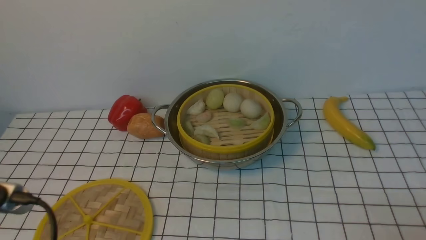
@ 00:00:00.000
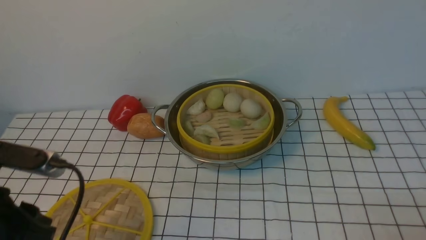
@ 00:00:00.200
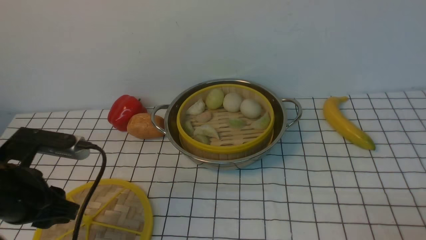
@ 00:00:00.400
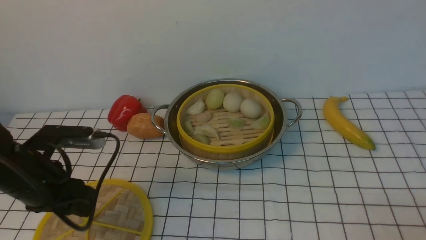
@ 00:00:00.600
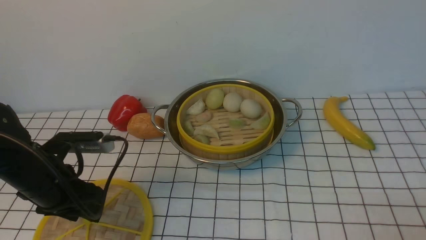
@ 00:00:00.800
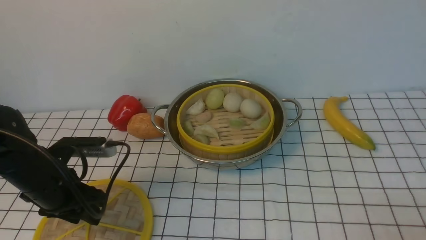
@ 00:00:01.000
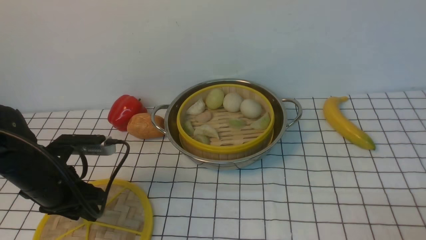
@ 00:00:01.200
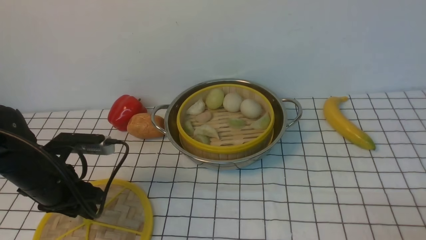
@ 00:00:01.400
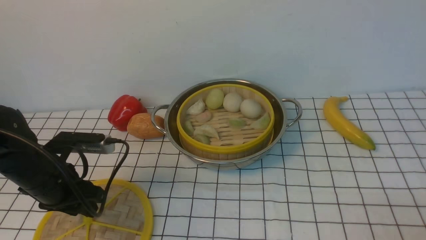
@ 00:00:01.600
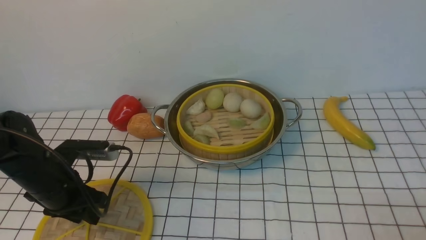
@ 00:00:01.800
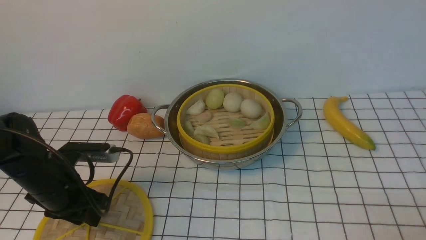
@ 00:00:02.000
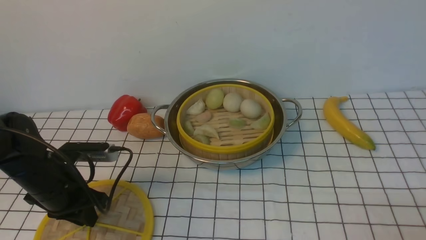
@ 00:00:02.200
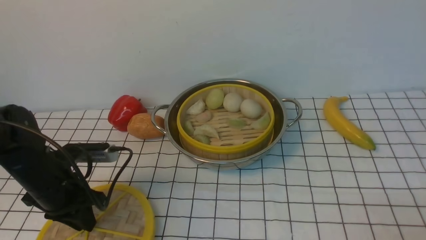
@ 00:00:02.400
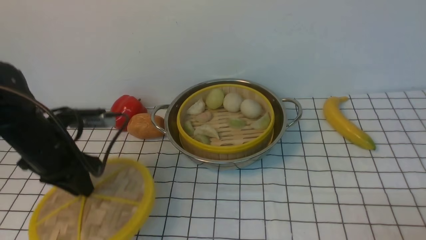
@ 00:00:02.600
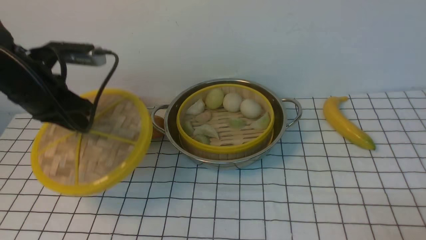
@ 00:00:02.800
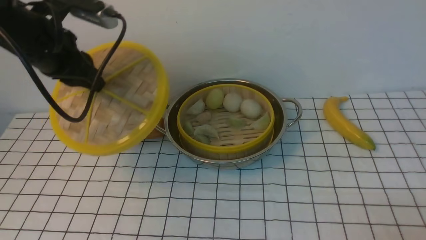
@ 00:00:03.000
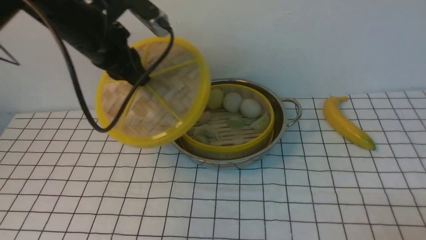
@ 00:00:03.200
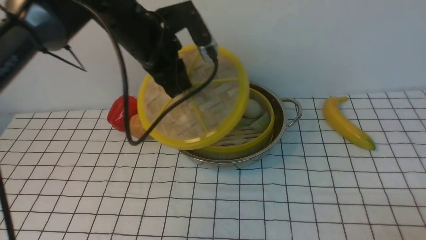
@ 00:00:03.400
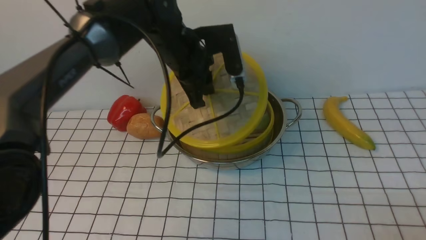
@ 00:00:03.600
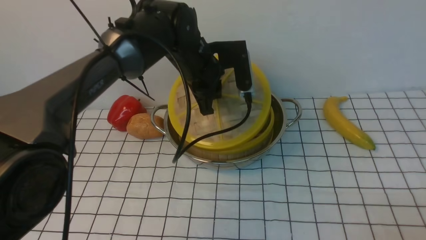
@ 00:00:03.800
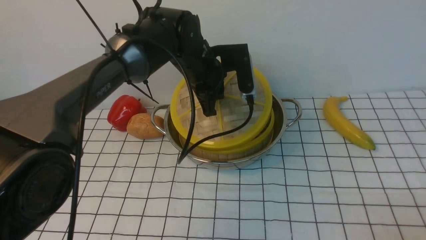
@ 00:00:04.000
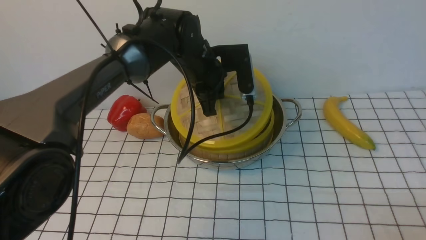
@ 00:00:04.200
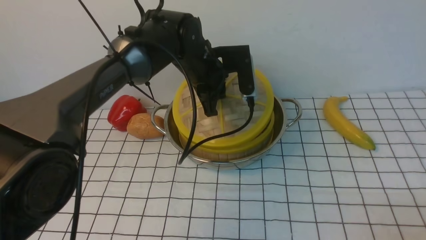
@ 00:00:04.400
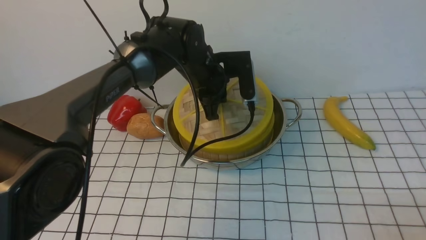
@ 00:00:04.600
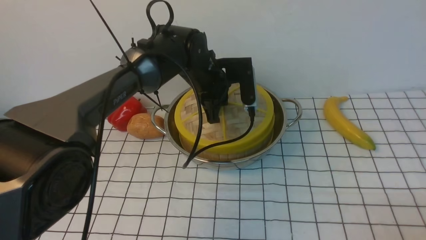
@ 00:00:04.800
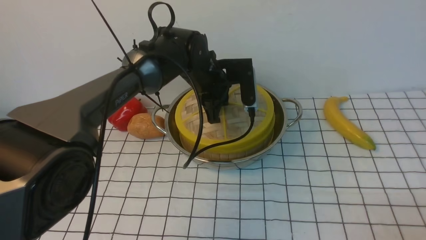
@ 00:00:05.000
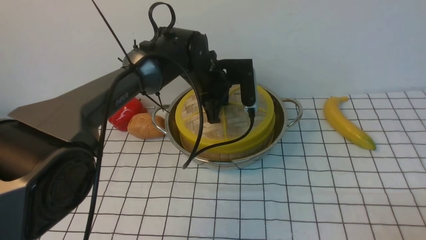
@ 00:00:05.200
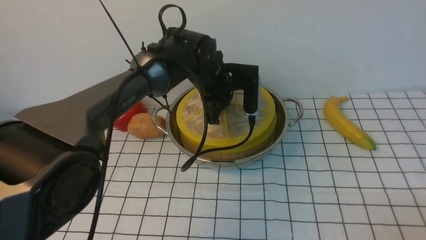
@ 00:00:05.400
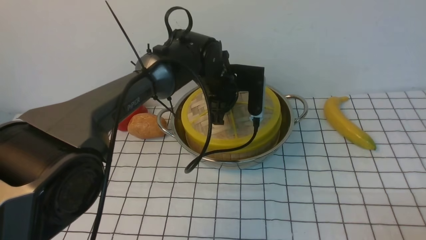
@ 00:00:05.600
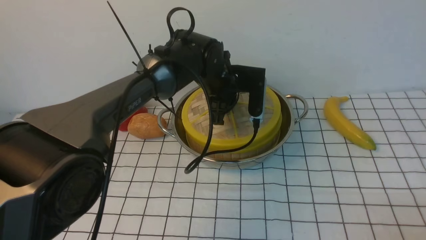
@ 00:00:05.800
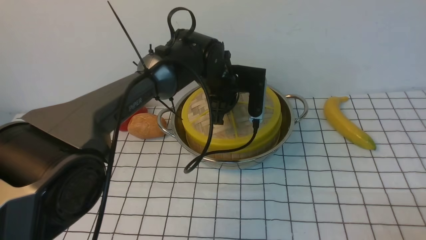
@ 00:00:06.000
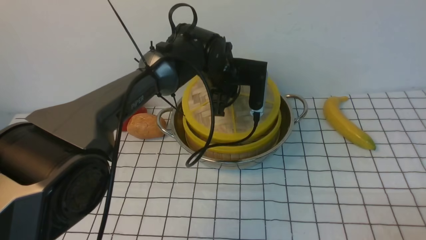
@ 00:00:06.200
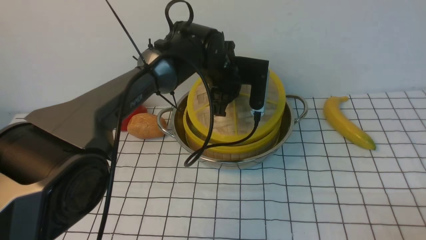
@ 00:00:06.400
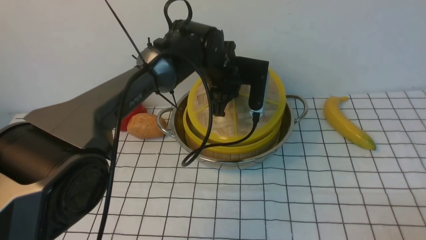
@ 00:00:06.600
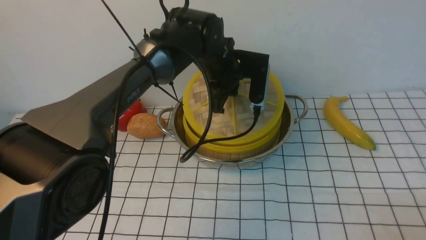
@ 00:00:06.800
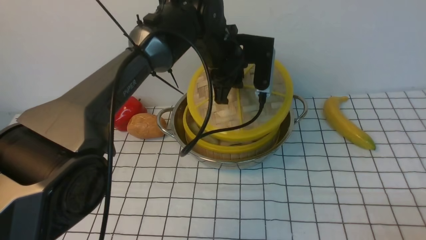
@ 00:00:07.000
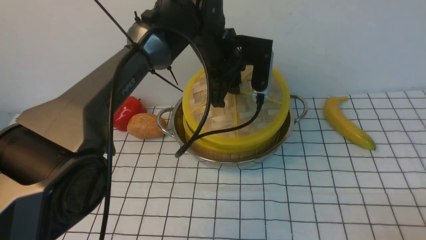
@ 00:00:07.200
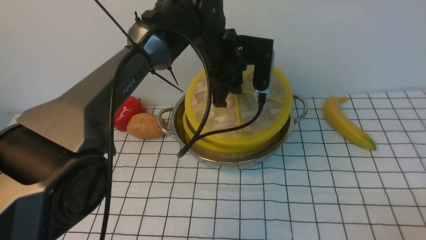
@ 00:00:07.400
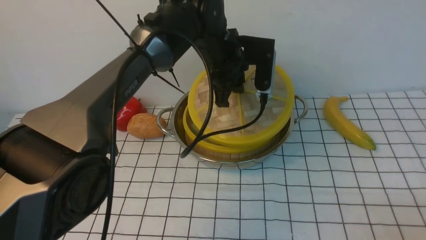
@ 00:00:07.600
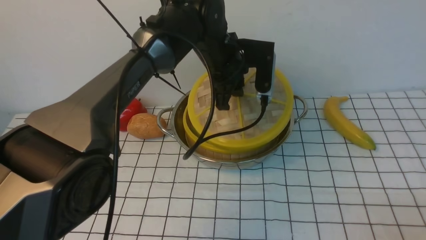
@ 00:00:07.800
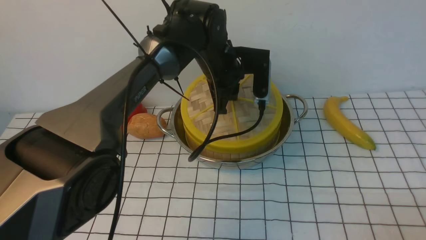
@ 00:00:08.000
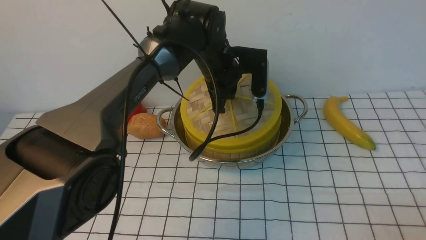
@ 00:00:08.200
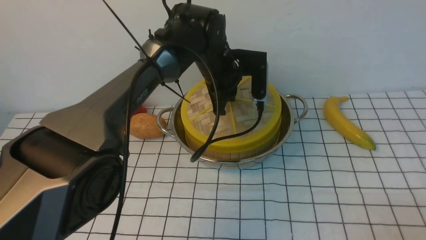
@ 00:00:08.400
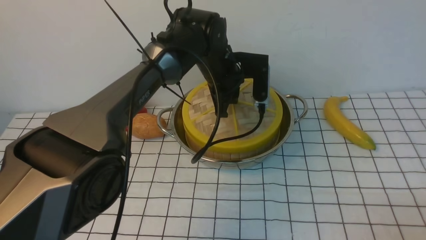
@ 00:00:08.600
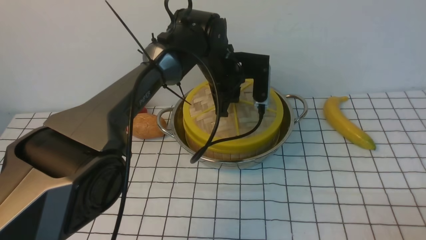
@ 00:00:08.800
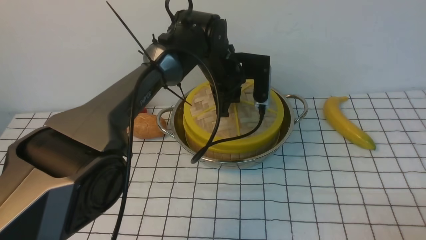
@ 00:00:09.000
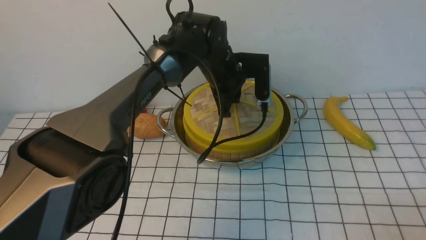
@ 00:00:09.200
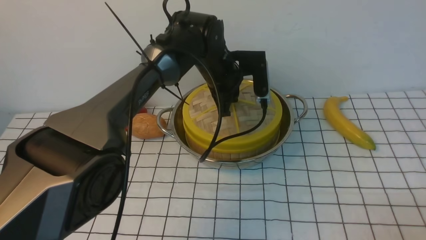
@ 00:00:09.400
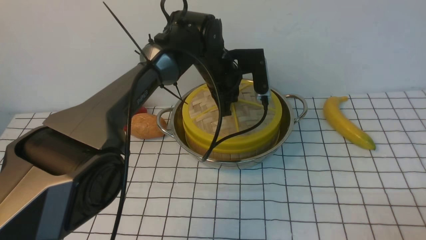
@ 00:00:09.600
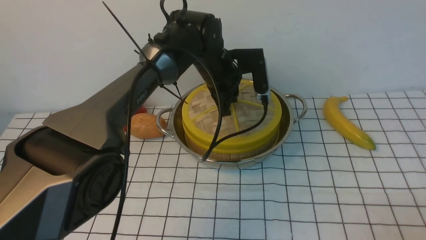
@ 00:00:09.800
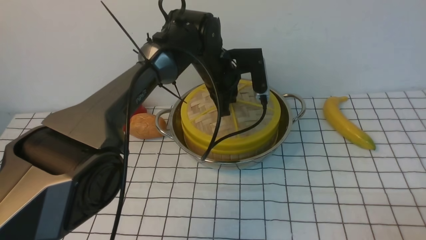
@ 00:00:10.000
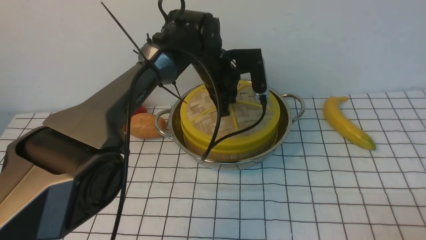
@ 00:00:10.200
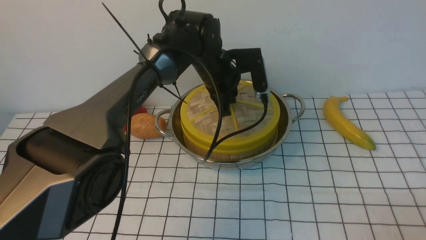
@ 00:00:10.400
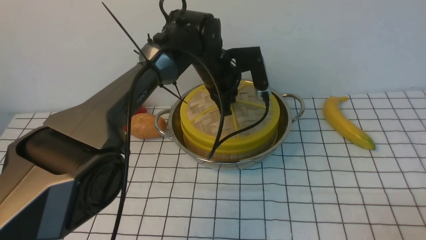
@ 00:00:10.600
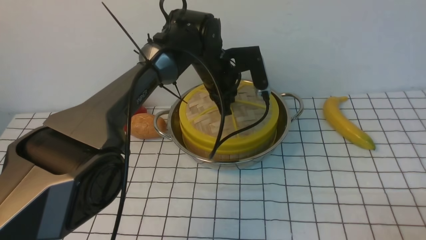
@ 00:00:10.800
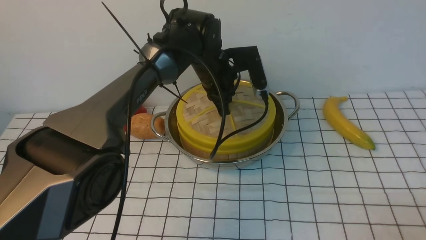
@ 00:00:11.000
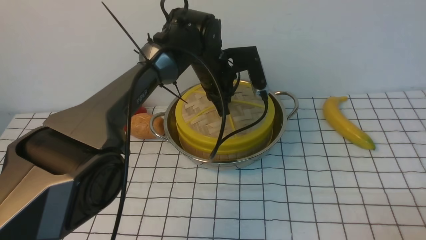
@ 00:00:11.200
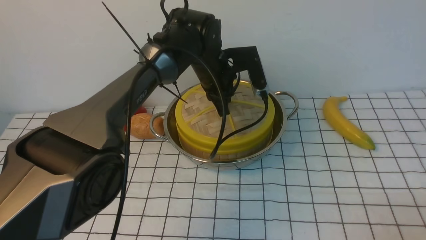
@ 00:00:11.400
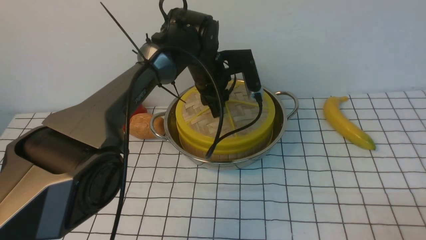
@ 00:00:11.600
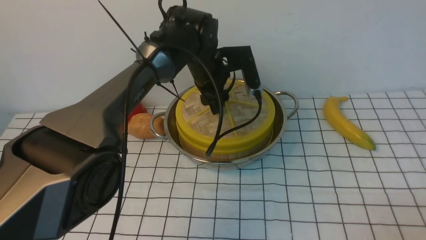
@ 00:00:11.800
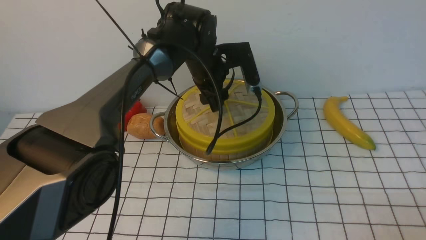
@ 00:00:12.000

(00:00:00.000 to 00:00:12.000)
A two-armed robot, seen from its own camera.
Task of the whole recording: place the steamer in the pot on the white tablecloth, and put the lid on the steamer.
Step, 00:00:00.000 - 00:00:02.600: use the left arm to lift the lid of the steamer.
00:00:00.000 - 00:00:01.600: The left gripper heads forward and downward, covering some 20 cm.
00:00:01.600 - 00:00:03.000: The left gripper is displaced upward and forward by some 20 cm, and closes up.
00:00:03.000 - 00:00:04.400: The left gripper shifts some 20 cm to the right, downward and forward.
00:00:06.000 - 00:00:07.600: The left gripper shifts some 5 cm upward.
00:00:09.000 - 00:00:10.400: There are only small adjustments of the grippers.
00:00:10.400 - 00:00:12.000: The left gripper opens up.

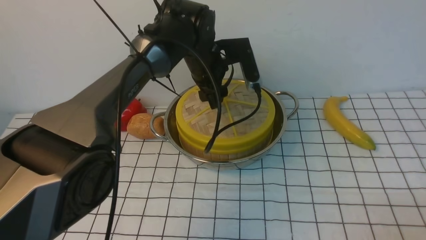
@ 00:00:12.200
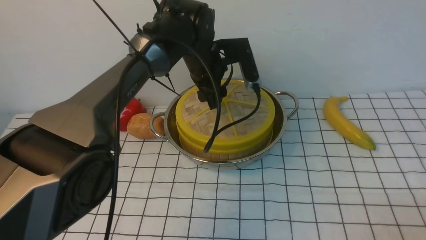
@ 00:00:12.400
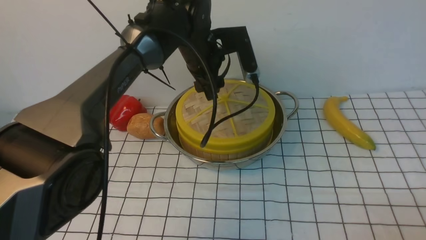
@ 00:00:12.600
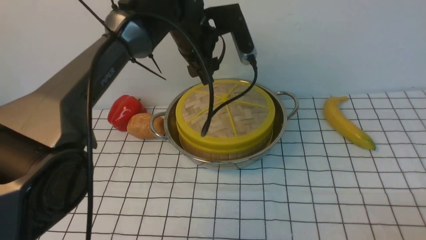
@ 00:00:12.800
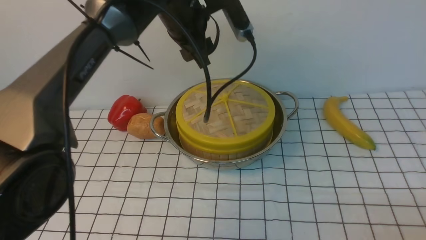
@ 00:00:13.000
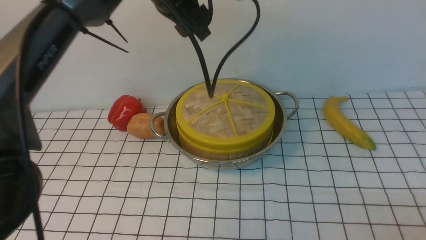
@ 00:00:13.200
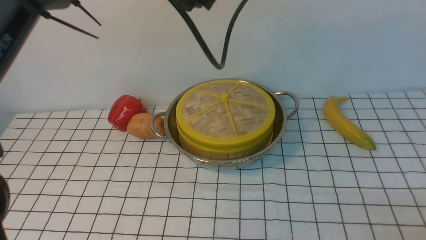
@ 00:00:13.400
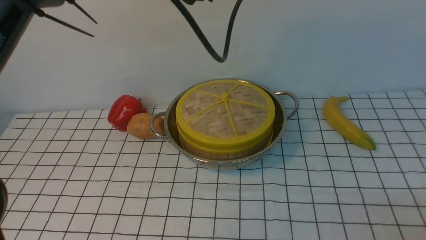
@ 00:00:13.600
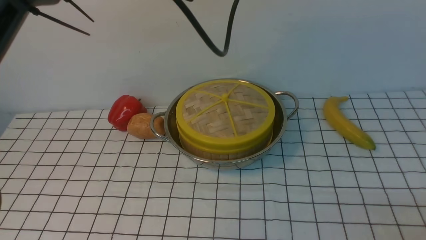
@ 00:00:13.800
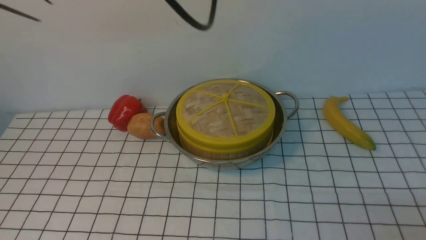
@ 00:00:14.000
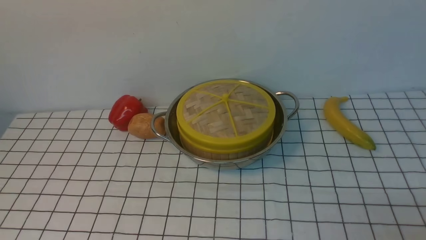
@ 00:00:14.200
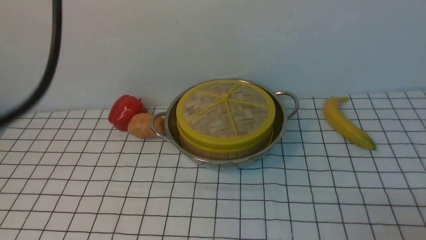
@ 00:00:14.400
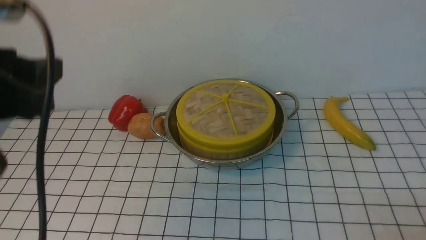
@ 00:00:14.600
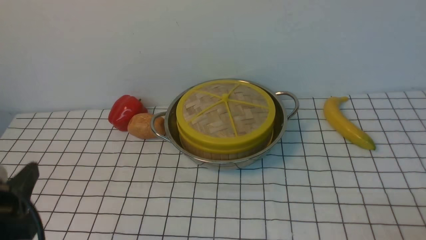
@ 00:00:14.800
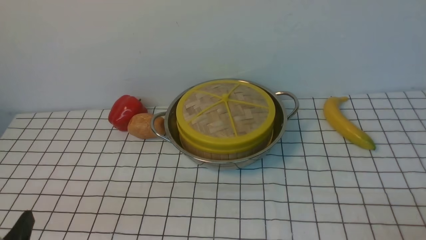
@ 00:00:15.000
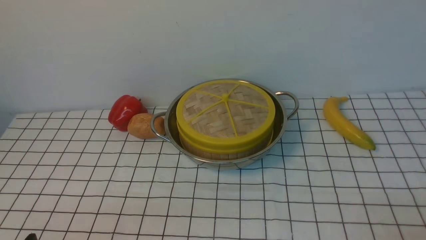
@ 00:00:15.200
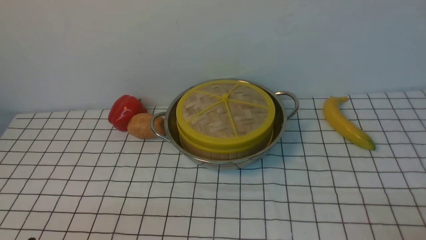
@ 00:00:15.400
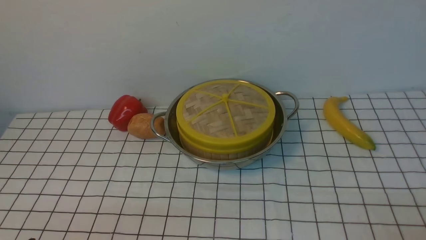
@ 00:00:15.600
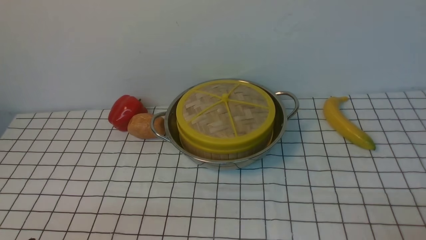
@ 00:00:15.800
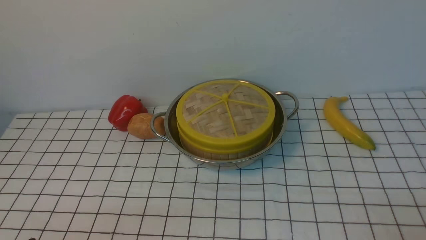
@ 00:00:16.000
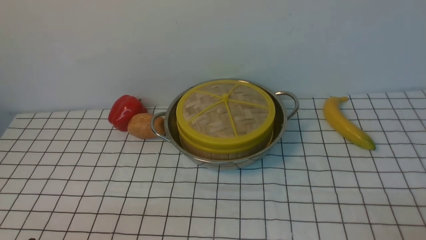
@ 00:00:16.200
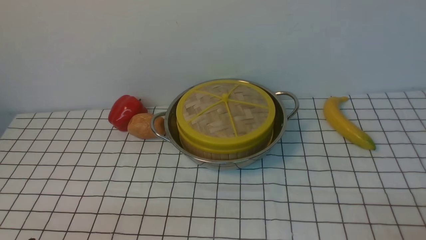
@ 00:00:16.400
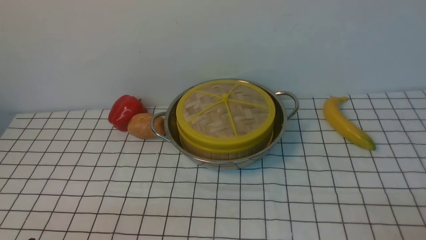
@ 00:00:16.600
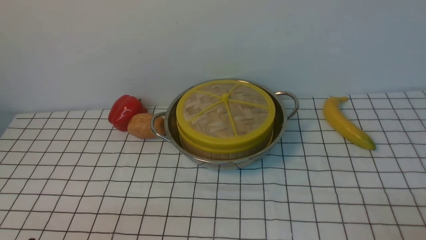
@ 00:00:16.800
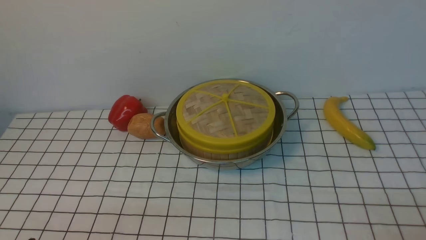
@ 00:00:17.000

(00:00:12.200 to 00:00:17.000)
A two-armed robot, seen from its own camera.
Task of the whole recording: place the steamer in the pot on the white tablecloth, and put the lid on the steamer.
00:00:12.200 - 00:00:13.800: The left gripper moves upward and backward, roughly 25 cm.
00:00:13.800 - 00:00:15.400: The left gripper moves backward, downward and to the left, about 50 cm.
00:00:15.400 - 00:00:17.000: Both grippers stay about where they are.
